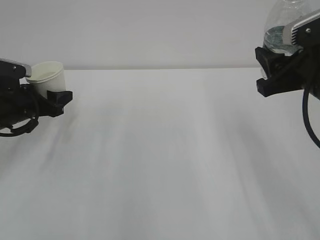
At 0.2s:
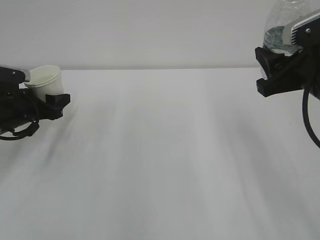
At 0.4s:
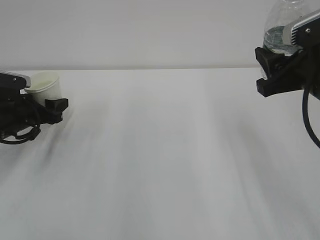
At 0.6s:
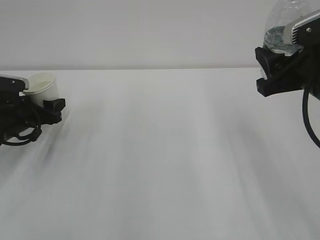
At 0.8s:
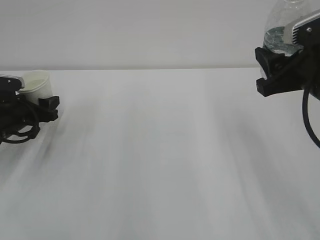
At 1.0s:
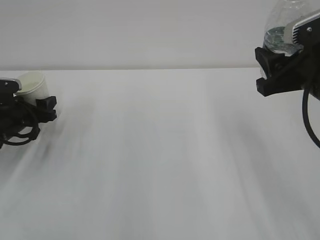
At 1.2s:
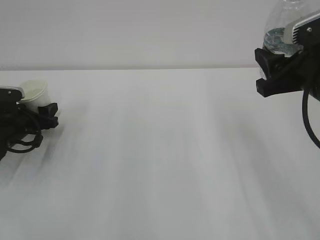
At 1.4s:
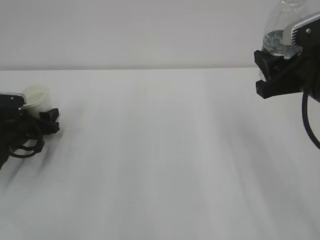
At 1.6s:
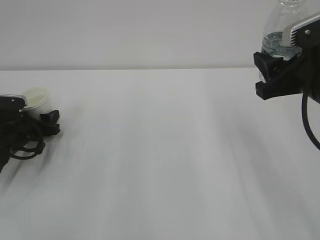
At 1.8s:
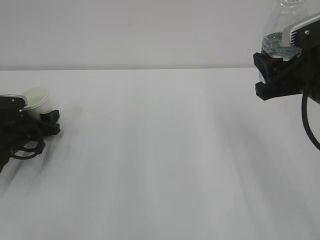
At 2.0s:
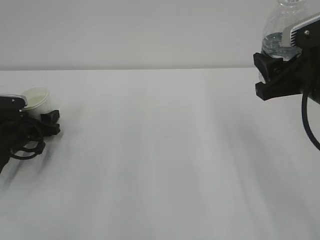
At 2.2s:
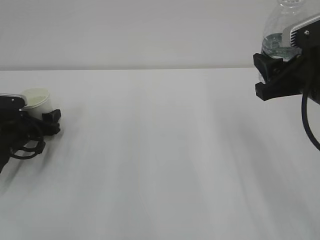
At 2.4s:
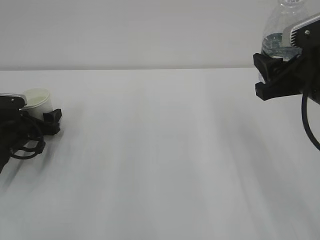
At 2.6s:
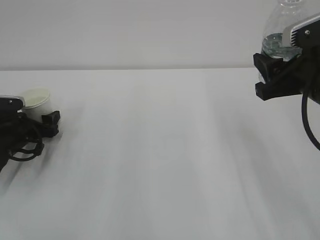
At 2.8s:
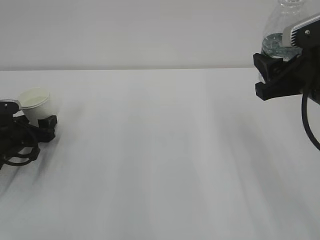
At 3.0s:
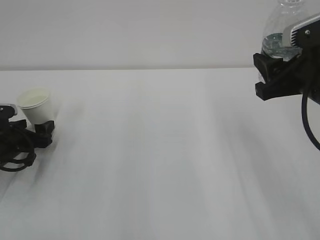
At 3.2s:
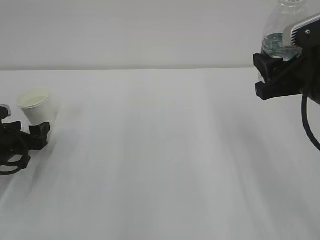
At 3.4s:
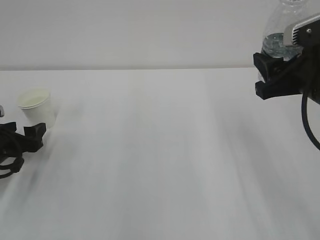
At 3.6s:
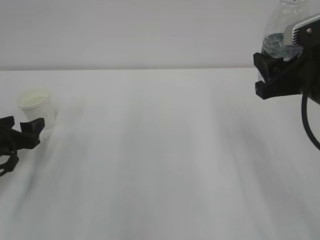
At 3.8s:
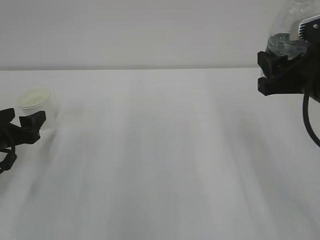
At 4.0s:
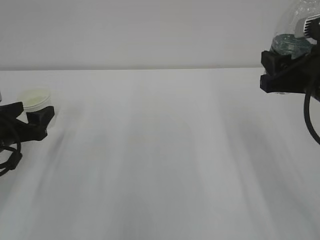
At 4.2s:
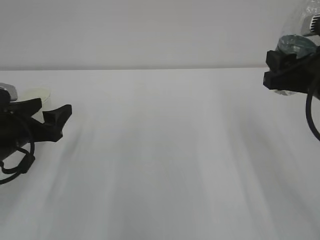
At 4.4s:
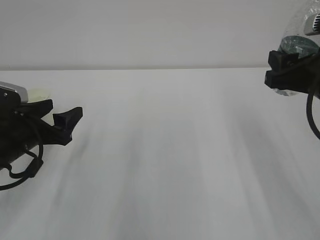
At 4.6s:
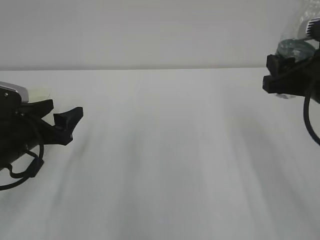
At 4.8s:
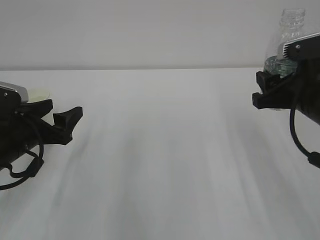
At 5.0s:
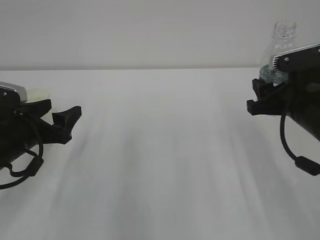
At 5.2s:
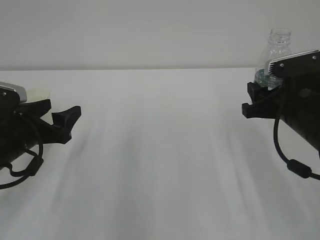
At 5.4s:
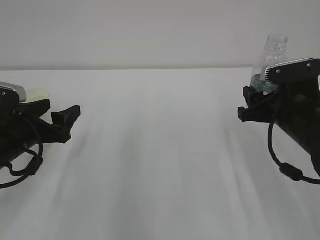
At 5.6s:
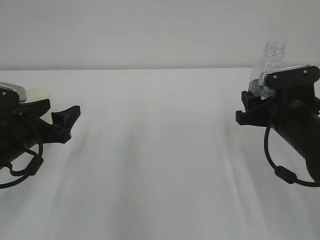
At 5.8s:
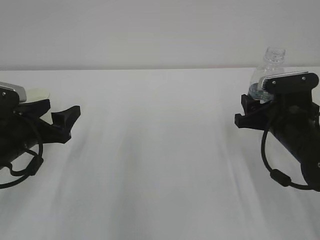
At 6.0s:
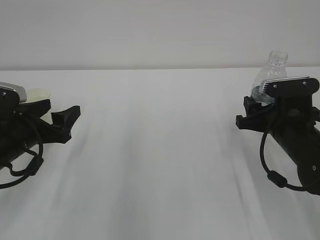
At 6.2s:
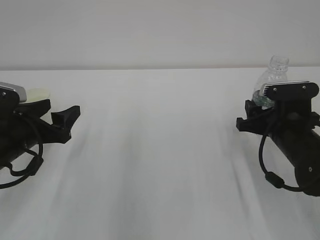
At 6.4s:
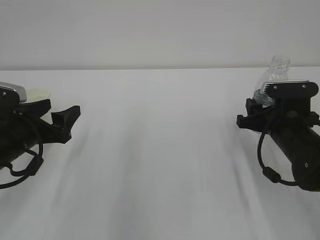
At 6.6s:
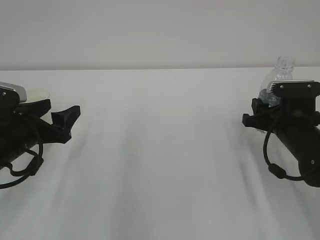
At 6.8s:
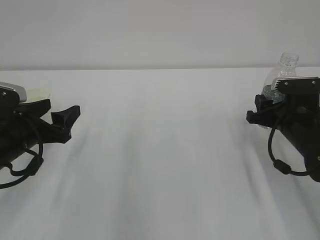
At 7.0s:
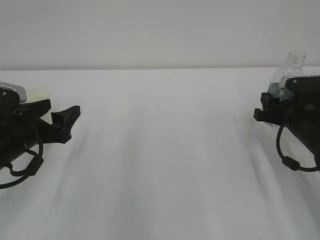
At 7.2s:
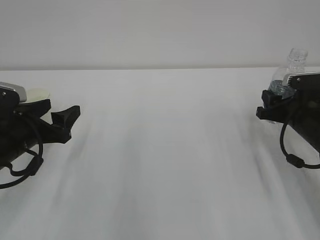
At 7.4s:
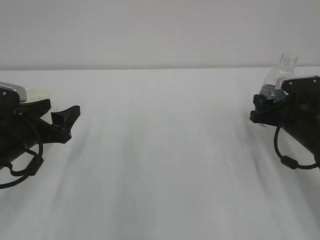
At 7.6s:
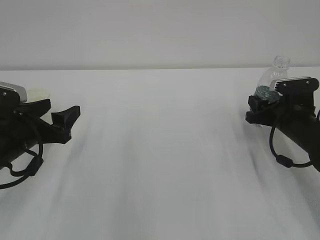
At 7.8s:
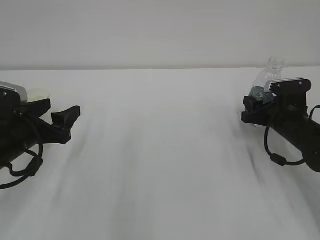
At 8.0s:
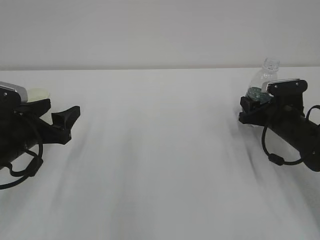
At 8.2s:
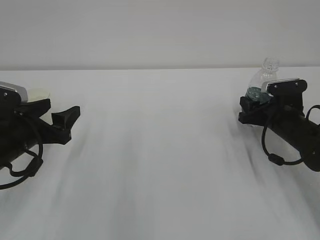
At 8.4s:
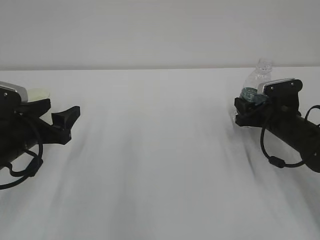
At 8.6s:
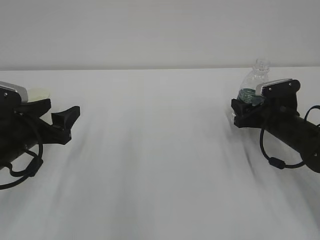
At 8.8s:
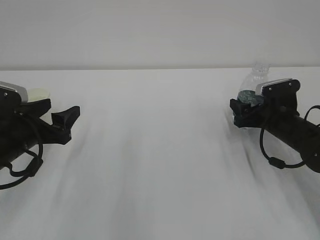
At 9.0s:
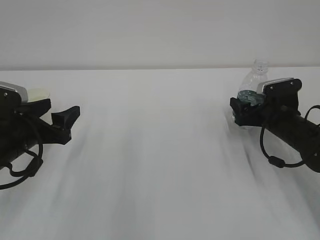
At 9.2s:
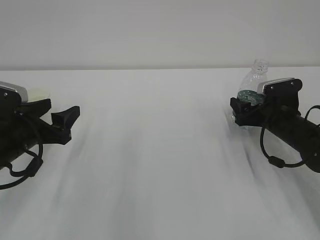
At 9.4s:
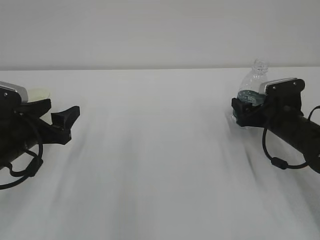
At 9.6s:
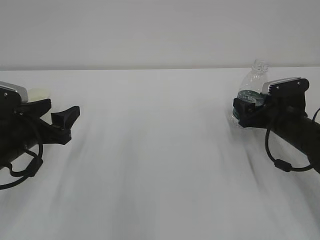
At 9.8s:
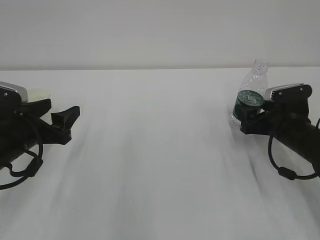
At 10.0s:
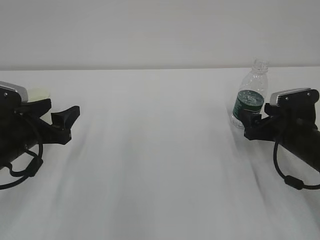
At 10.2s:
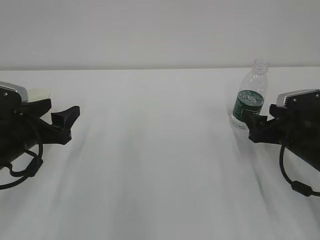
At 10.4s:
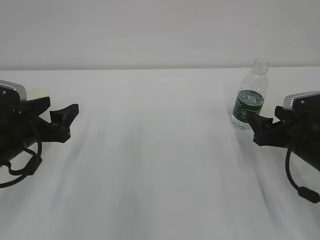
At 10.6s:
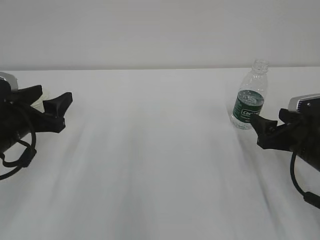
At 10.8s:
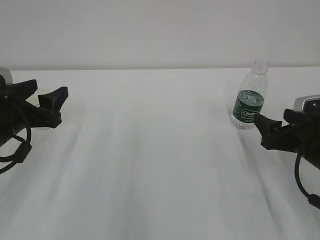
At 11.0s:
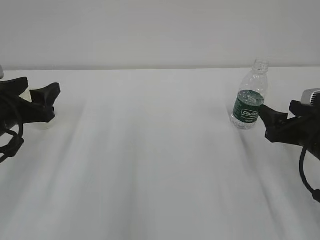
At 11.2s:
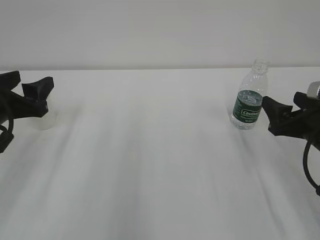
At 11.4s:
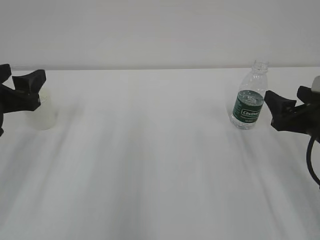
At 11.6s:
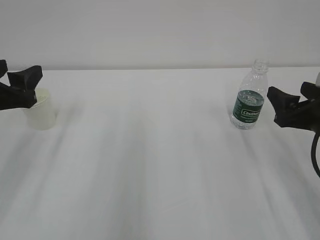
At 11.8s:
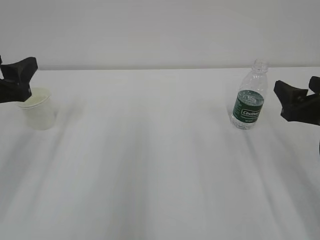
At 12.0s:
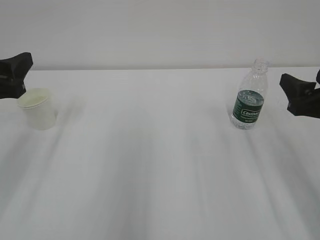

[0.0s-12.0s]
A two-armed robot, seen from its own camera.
0.0s to 1.6s: The left gripper goes about 10 cm downward.
1.6s to 3.0s: The left gripper opens its fingers.
3.0s to 4.4s: The left gripper moves upward, to the right and backward, some 15 cm.
4.4s to 6.0s: The right gripper shifts about 10 cm downward.
6.0s to 7.6s: The right gripper goes roughly 10 cm forward and to the right.
7.6s to 9.0s: The right gripper opens.
9.0s to 10.4s: The right gripper goes roughly 10 cm backward.
10.4s to 12.0s: The grippers both shift upward by roughly 10 cm.

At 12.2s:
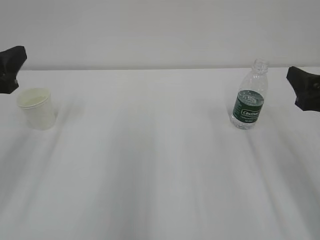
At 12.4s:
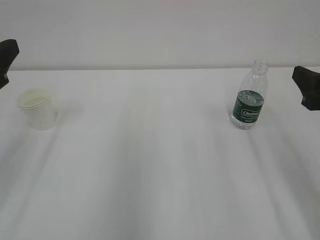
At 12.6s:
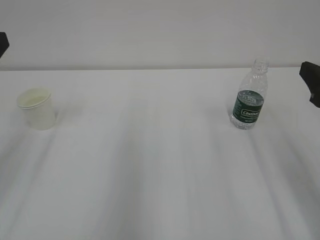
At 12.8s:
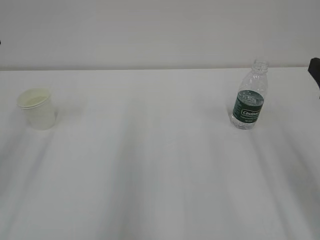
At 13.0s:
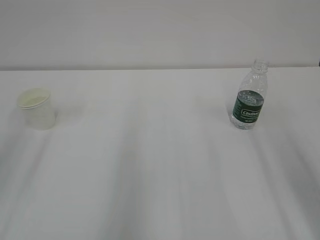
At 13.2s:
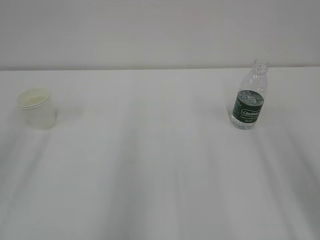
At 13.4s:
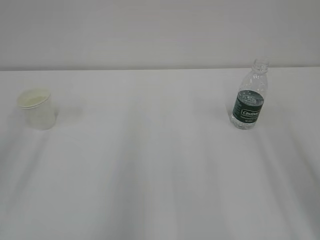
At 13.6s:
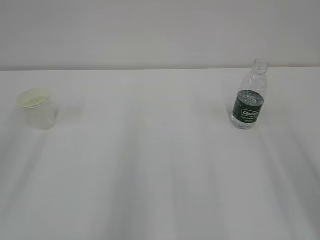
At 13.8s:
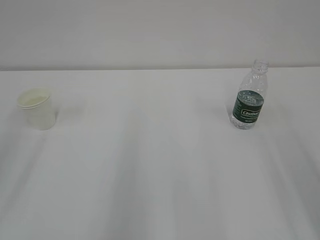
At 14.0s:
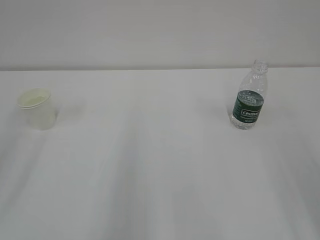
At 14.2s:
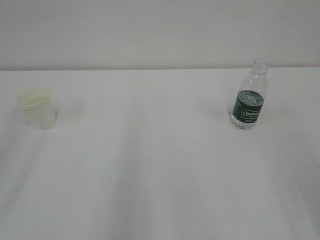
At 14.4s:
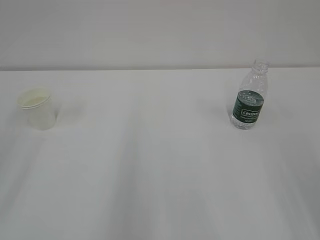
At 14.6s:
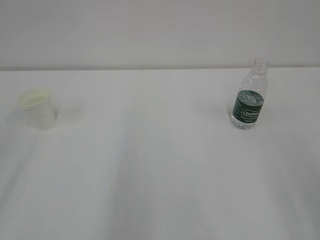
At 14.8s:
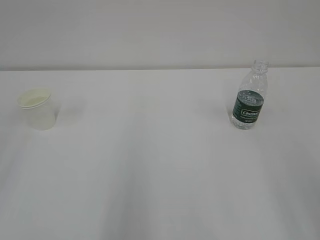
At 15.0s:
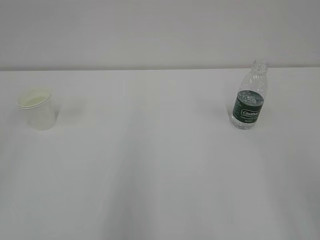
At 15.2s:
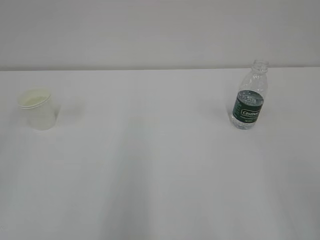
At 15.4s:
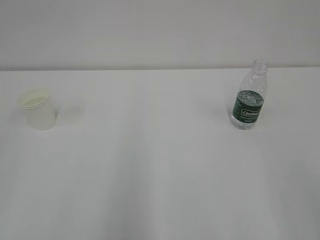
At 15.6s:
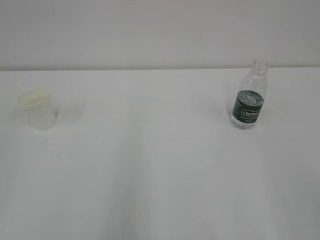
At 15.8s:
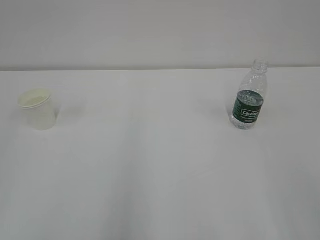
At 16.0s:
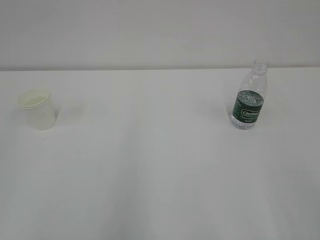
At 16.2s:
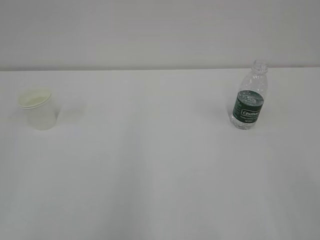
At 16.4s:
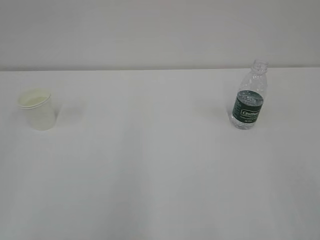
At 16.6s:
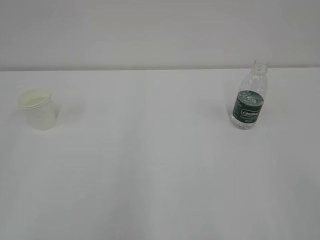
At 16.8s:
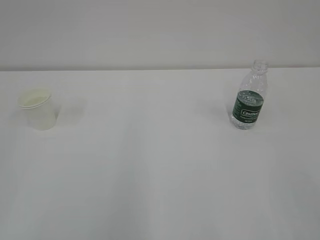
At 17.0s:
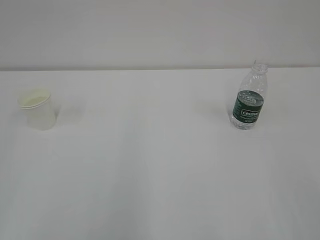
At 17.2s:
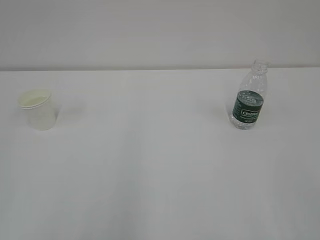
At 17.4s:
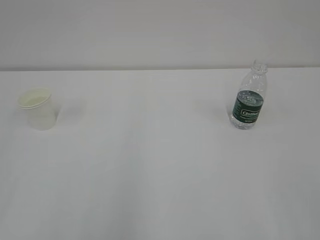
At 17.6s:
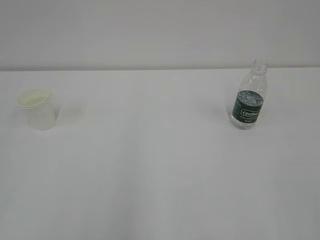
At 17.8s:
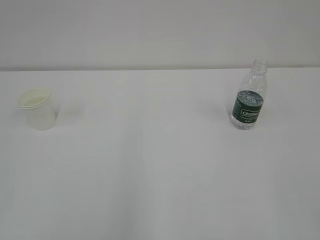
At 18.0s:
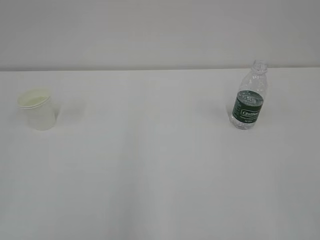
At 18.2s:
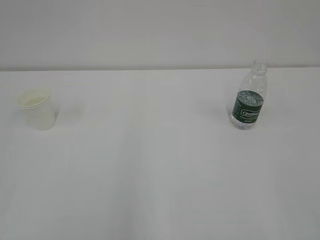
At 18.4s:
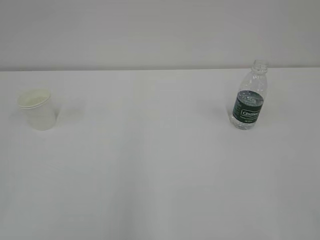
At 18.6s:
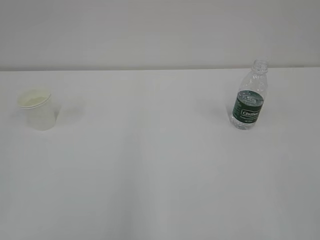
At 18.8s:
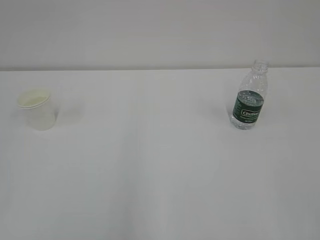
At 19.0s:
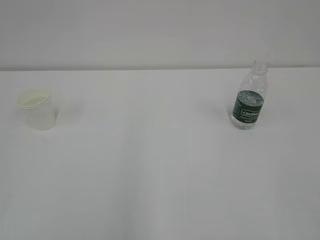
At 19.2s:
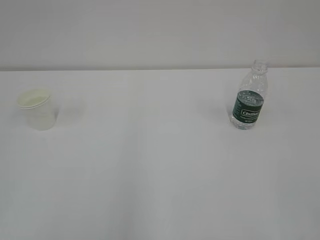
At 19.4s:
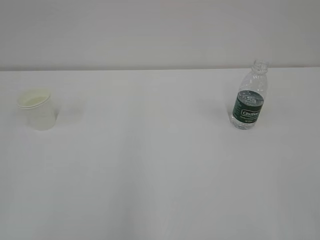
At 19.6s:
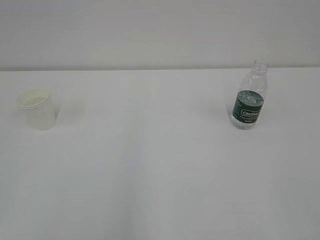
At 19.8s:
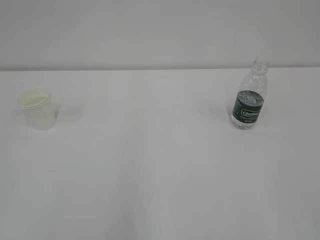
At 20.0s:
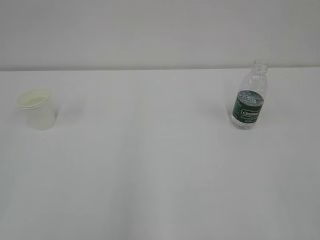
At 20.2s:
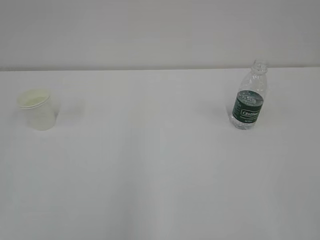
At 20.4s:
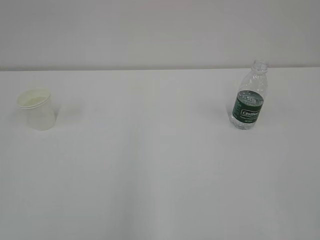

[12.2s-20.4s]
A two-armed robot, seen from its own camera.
12.2s to 13.8s: Both grippers move backward and upward, some 10 cm.

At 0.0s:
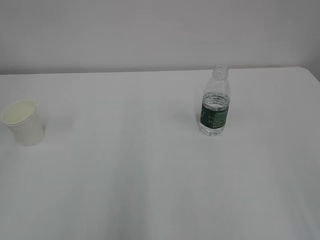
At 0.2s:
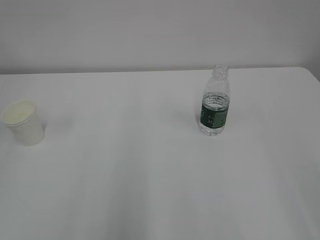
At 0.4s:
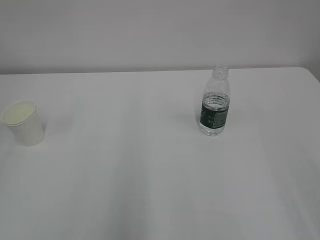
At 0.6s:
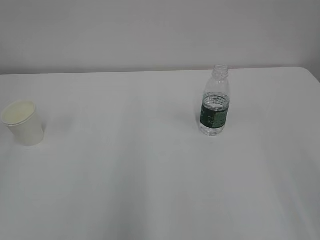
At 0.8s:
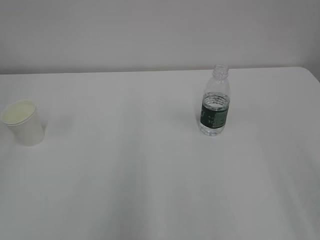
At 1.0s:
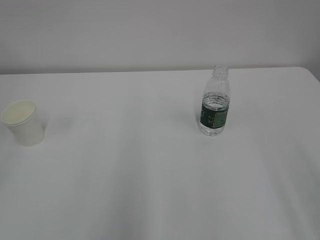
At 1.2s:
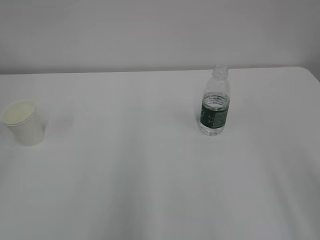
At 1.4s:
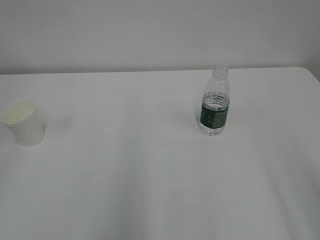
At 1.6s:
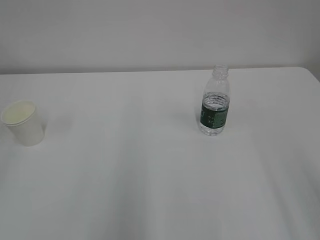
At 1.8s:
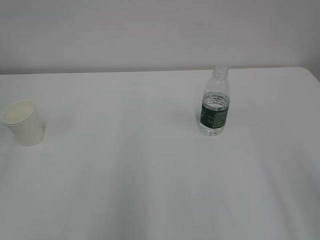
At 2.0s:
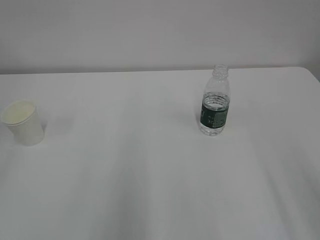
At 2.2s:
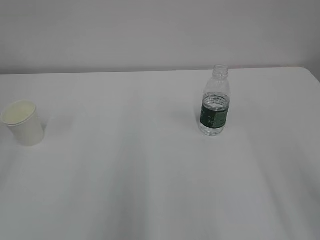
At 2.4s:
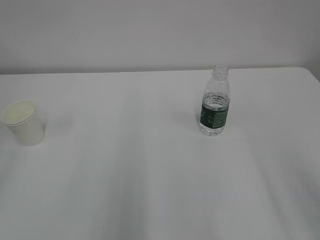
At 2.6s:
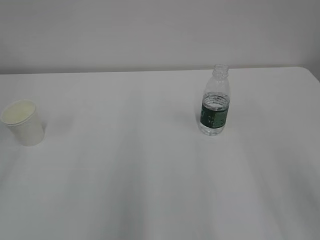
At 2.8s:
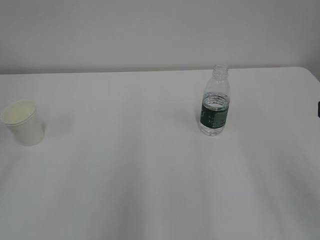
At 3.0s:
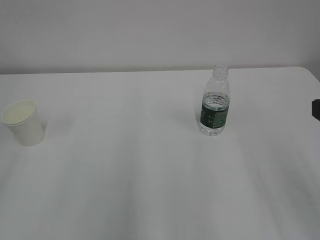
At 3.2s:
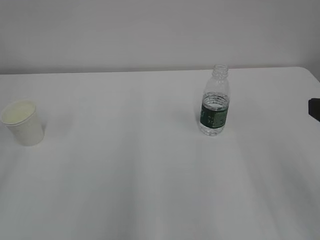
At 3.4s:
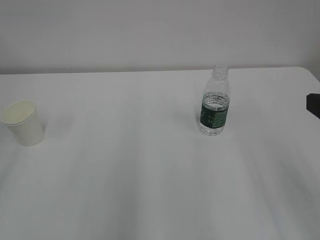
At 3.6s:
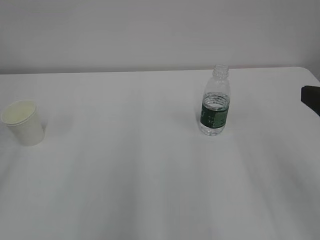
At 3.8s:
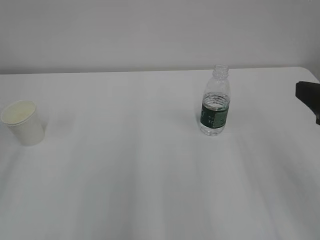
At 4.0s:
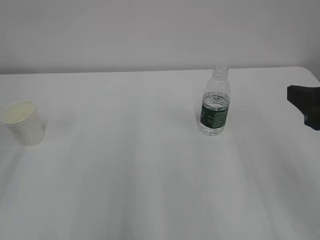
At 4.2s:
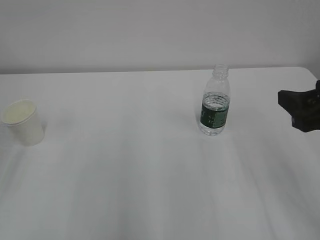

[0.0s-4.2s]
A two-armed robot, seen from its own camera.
2.8s to 4.2s: The right gripper heads forward, covering roughly 5 cm.
